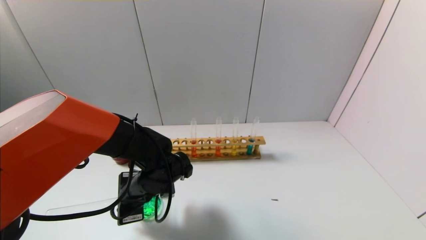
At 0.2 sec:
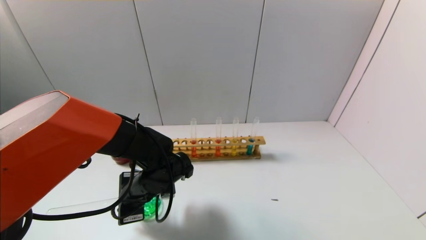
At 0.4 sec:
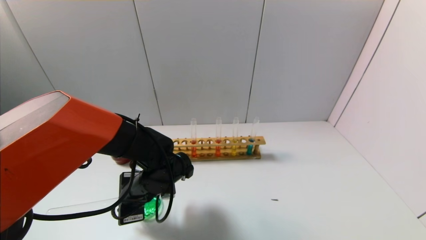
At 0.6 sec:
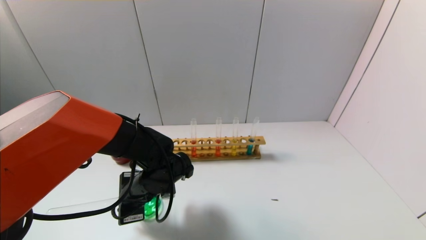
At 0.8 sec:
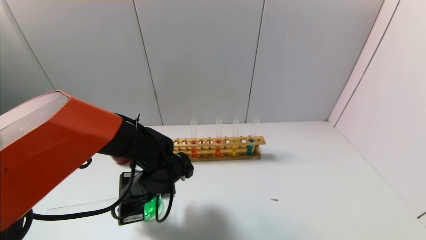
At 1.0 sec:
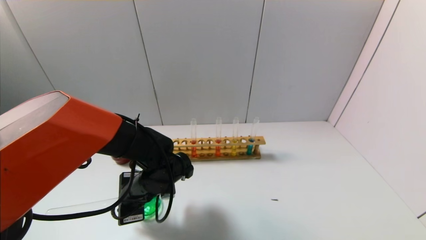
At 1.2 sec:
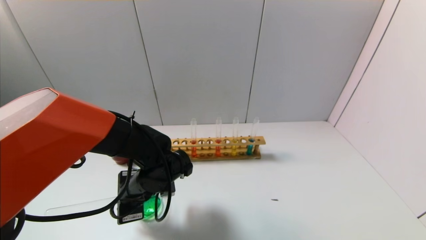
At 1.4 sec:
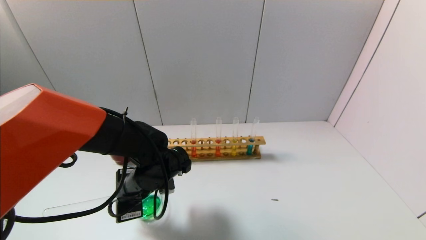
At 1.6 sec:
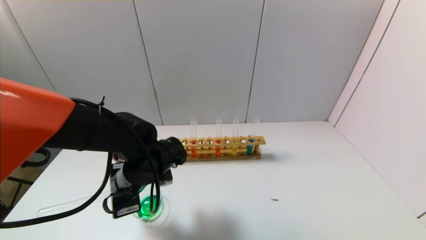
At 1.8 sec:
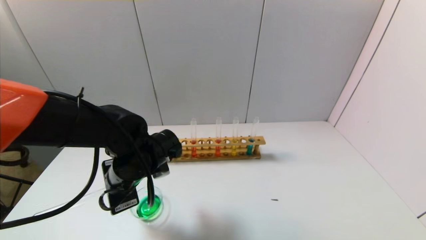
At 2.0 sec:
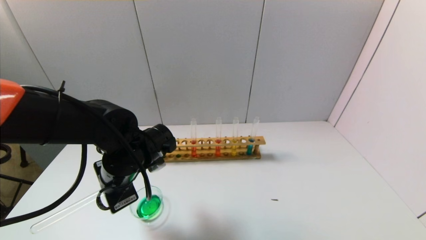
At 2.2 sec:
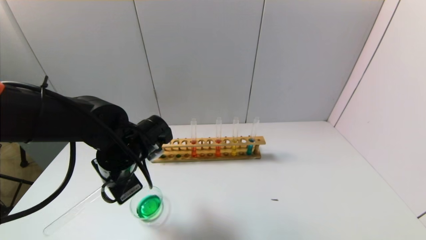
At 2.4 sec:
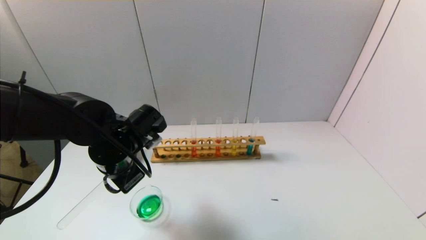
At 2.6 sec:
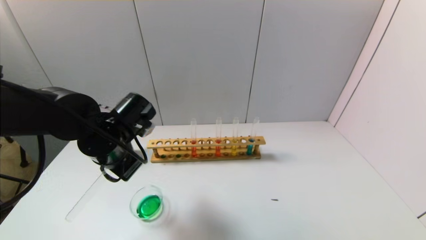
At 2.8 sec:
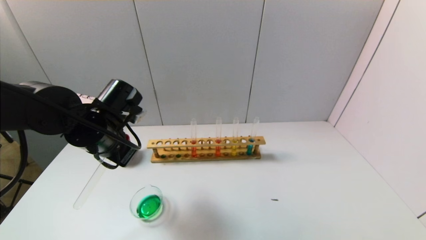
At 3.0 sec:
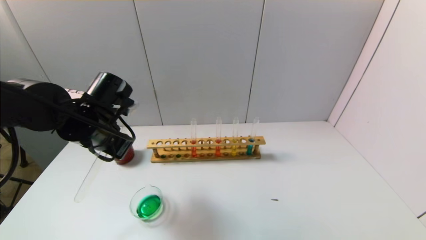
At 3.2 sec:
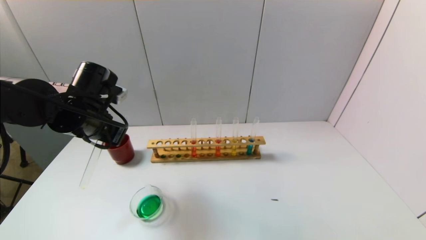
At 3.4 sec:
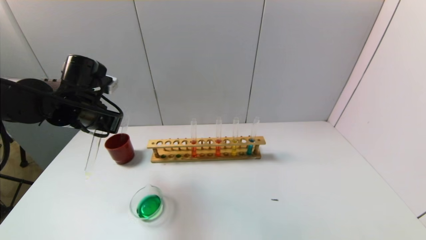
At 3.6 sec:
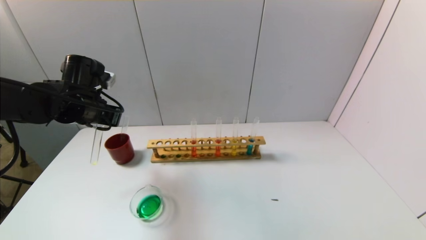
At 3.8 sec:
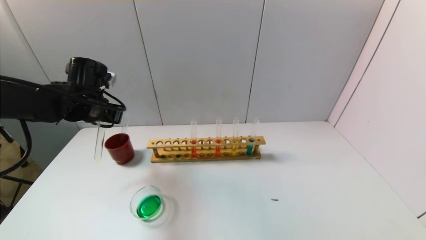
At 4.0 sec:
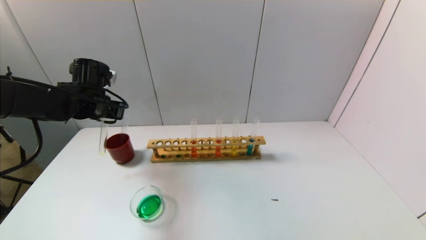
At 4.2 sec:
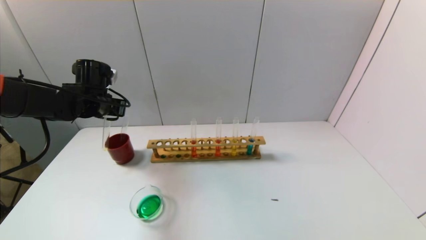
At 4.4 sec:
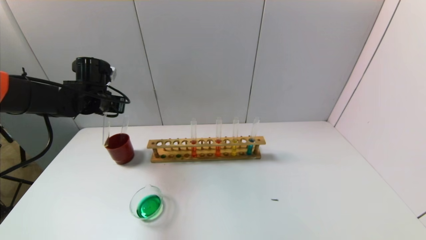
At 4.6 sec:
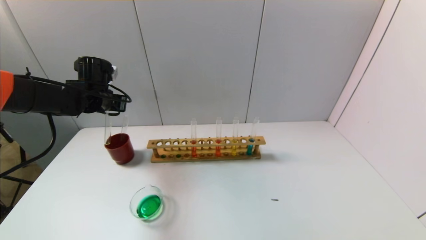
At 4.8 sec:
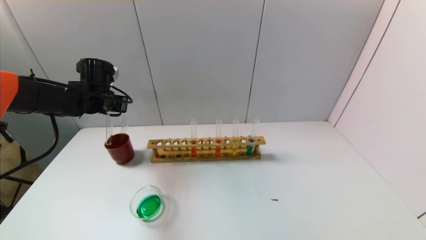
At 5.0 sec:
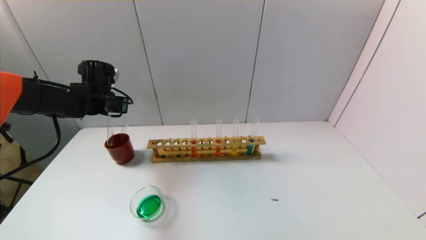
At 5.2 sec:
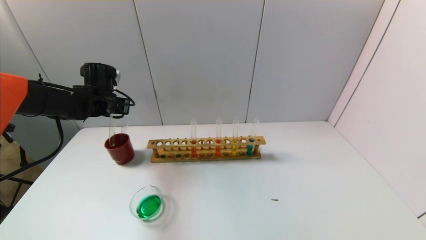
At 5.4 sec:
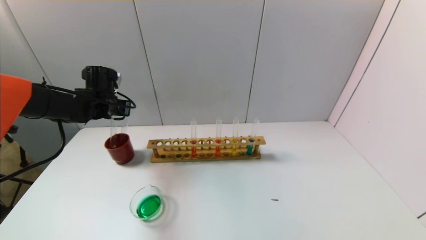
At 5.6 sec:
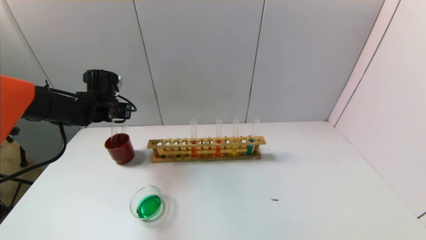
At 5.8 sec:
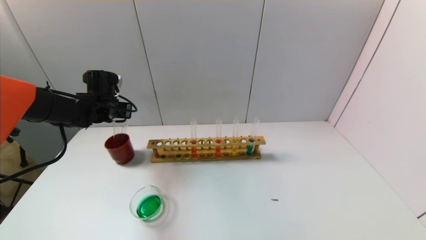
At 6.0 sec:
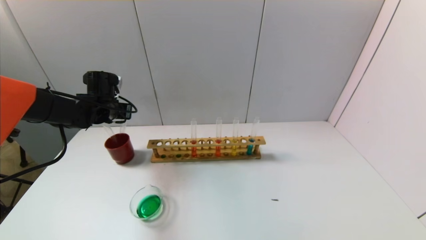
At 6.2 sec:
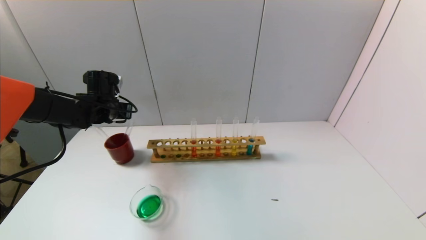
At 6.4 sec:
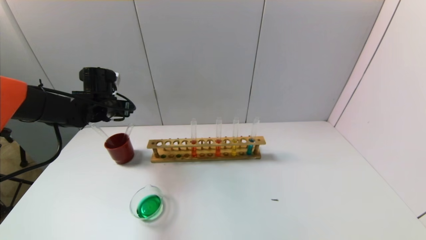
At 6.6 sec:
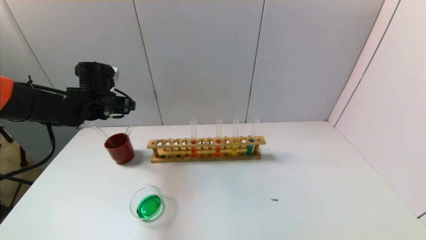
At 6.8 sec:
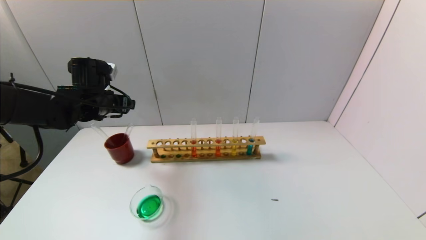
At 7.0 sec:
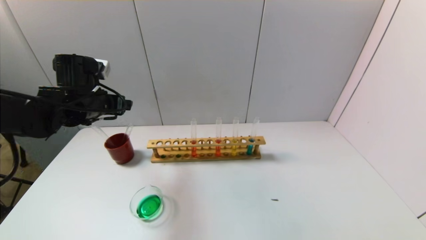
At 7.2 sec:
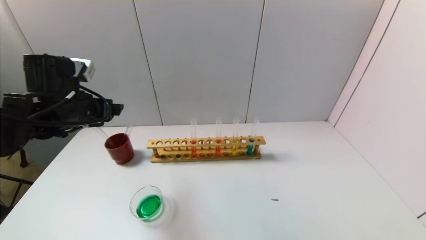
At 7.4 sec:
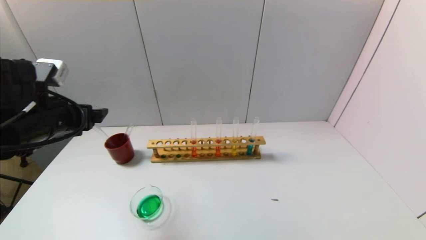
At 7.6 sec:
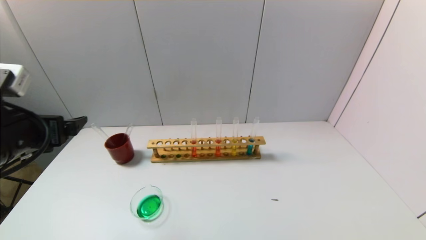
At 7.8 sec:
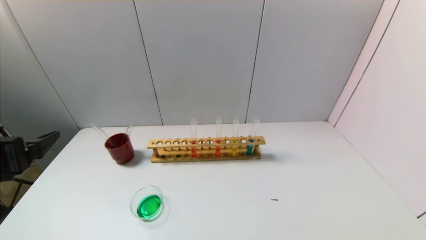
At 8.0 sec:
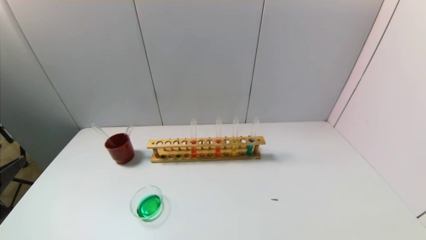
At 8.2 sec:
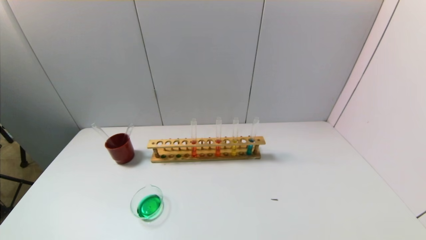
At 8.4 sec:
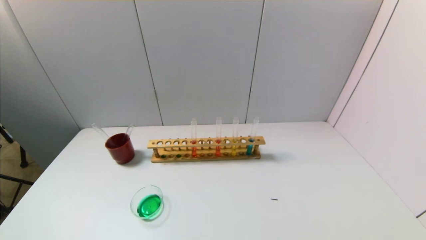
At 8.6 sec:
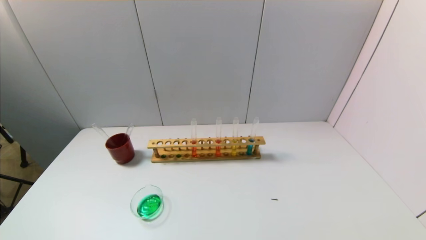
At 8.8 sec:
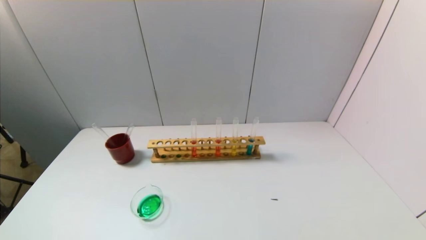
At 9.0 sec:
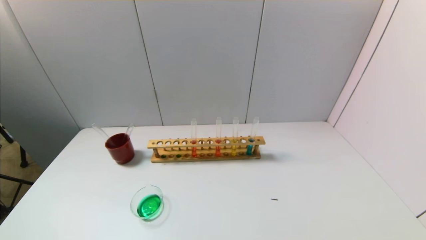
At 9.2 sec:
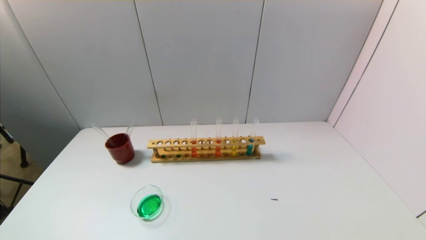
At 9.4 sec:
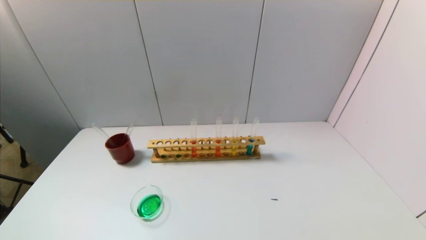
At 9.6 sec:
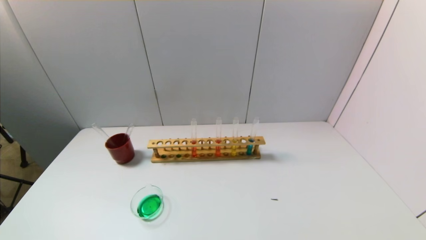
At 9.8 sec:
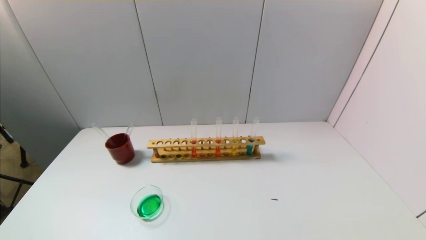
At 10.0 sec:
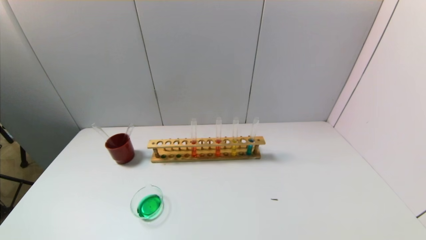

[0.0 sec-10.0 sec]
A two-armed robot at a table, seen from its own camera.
Task of the whole recording: pick up the test tube with yellow pigment and the test tube with blue pigment by grippers and pour them into the beaker.
0.0 sec to 1.4 sec: There are only small adjustments of the grippers.
1.4 sec to 2.8 sec: The left gripper shifts about 10 cm upward and to the left.
2.8 sec to 4.2 sec: The left gripper moves forward and to the left, some 15 cm.
4.2 sec to 5.8 sec: The grippers stay close to where they were, moving slightly.
5.8 sec to 7.2 sec: The left gripper is displaced backward and upward by roughly 15 cm, and opens.
7.2 sec to 8.6 sec: The left gripper moves backward, some 35 cm.
